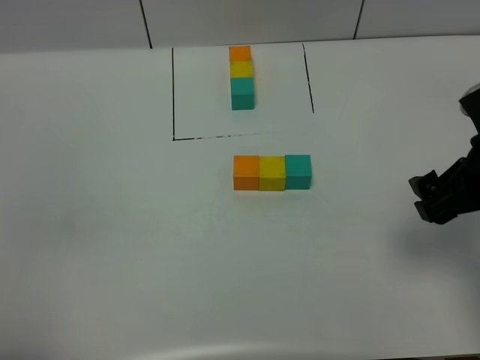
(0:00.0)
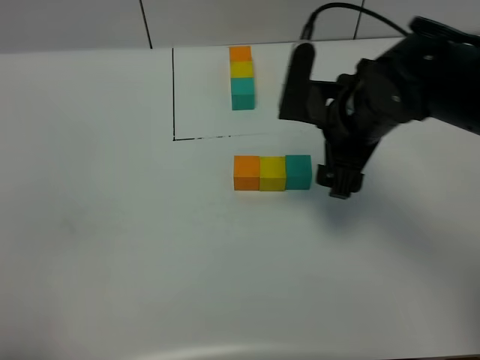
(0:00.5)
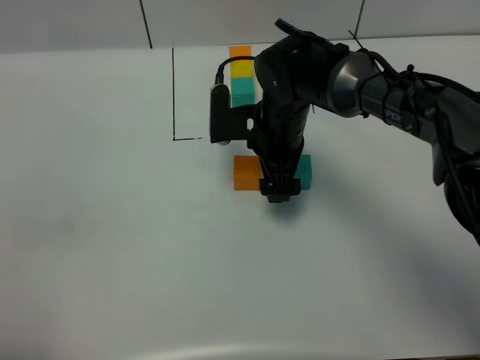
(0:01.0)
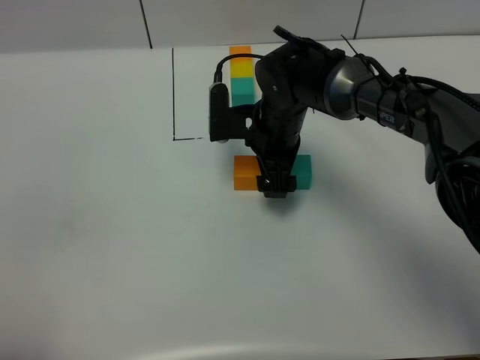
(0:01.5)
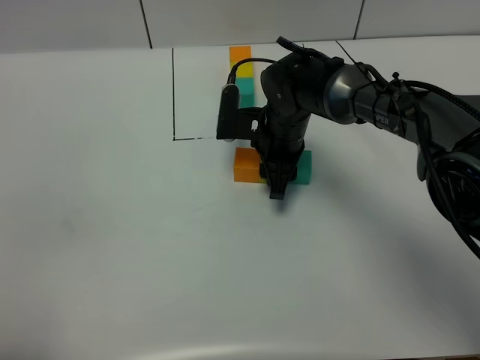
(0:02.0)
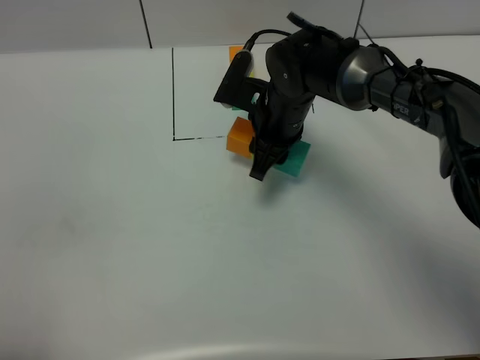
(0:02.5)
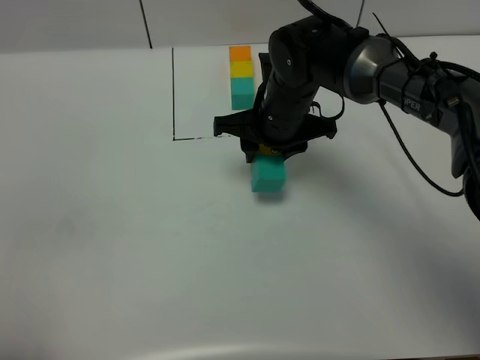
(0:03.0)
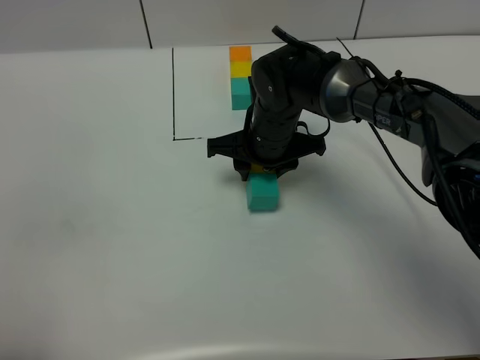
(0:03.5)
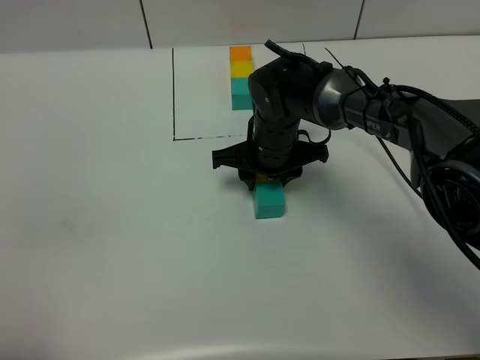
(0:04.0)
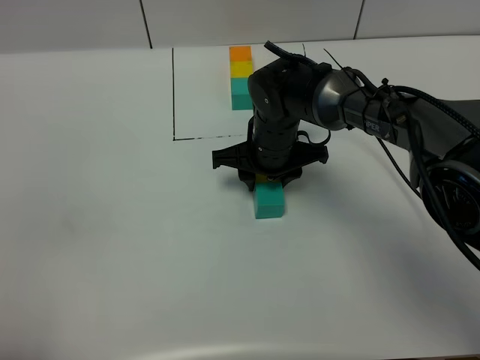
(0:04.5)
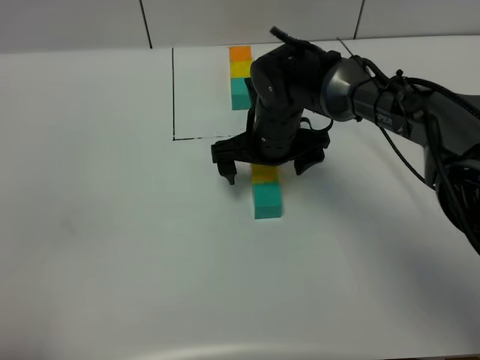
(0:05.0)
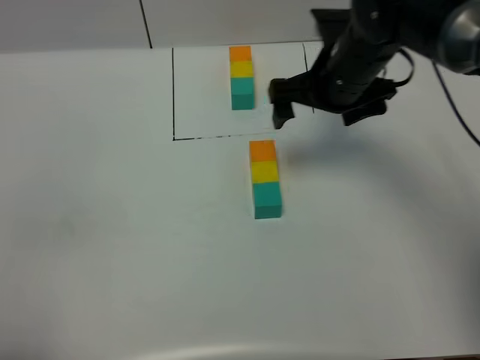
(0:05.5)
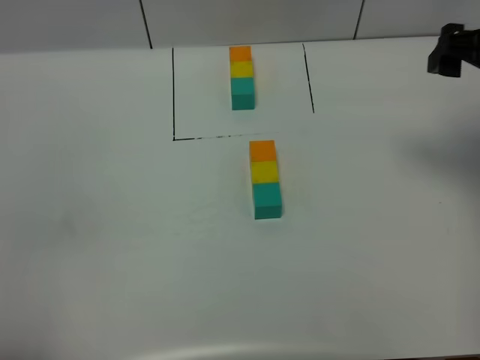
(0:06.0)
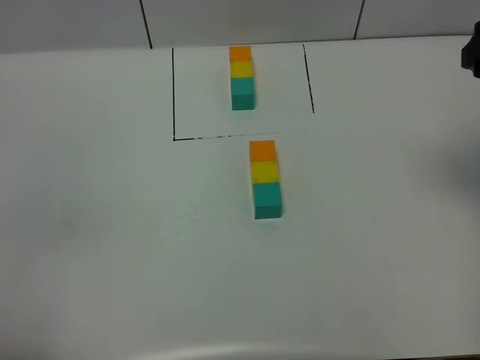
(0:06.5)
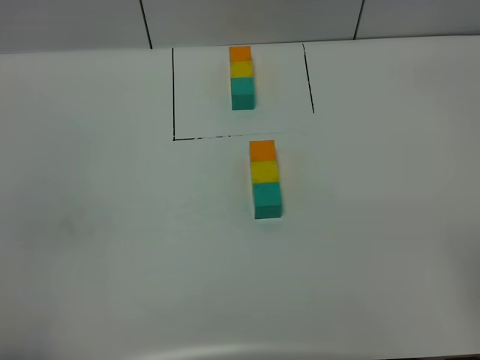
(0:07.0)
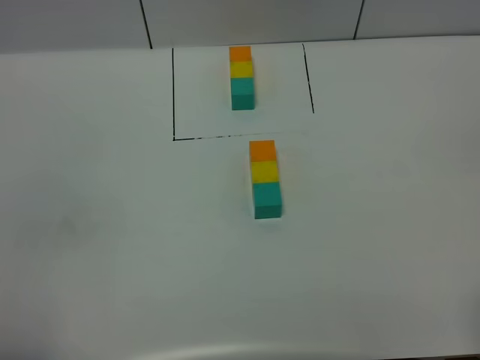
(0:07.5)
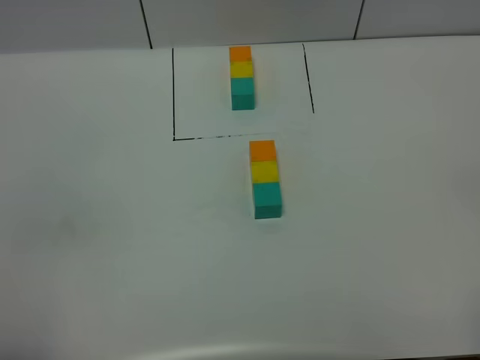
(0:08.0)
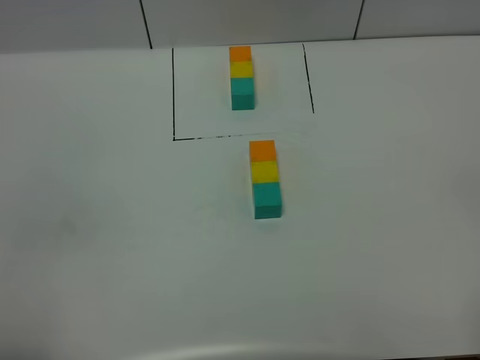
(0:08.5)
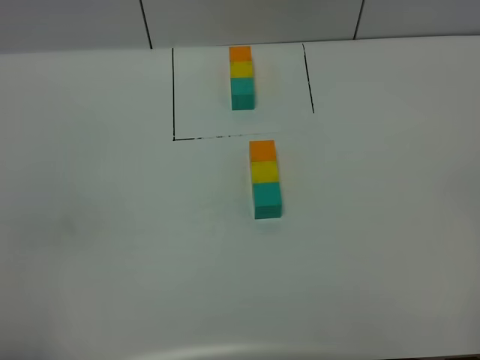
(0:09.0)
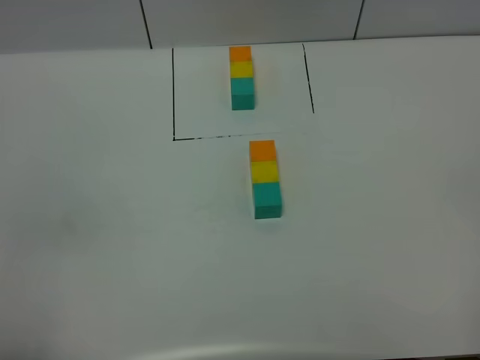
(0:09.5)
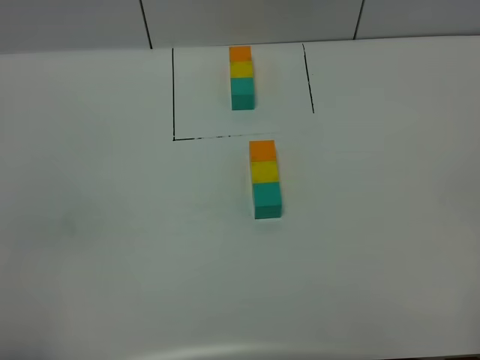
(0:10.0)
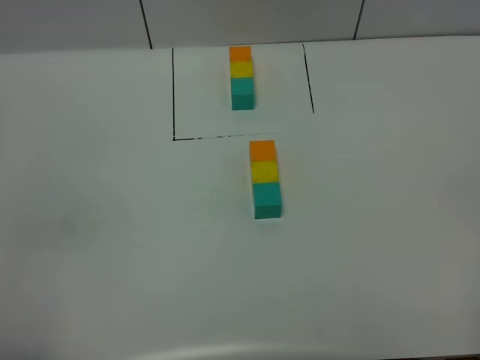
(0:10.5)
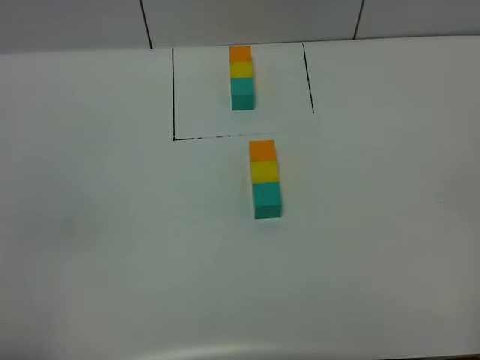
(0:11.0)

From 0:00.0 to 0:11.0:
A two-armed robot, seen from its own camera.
Task of the whole recording: According to the building block template in front, assemble the scattered blocks together.
Step, from 0:00.0 to 0:04.5: Adjust the pose of the building blocks.
From 0:00.0 to 0:02.0: The right gripper shifts approximately 30 cm to the left, forward and downward, and closes its fingers.
From 0:03.5 to 0:05.5: The right gripper moves to the right and upward, roughly 15 cm, and opens.
From 0:05.5 to 0:07.5: The right gripper moves backward and to the right, roughly 40 cm.

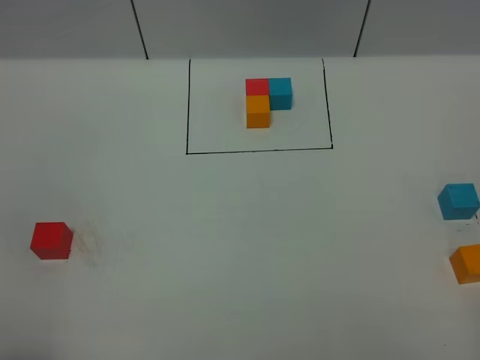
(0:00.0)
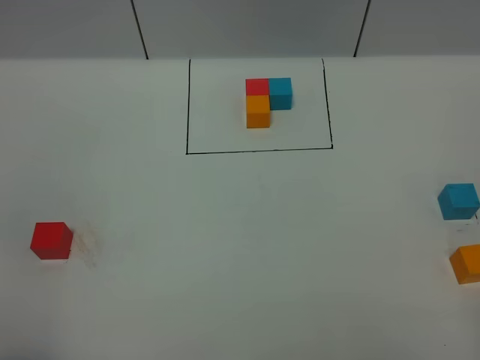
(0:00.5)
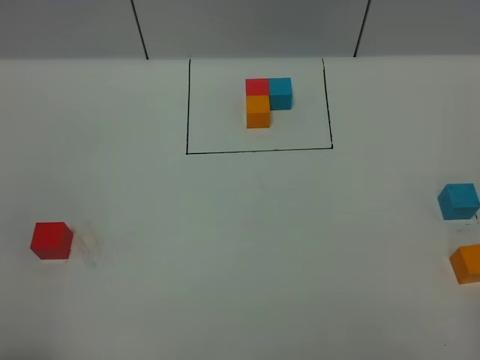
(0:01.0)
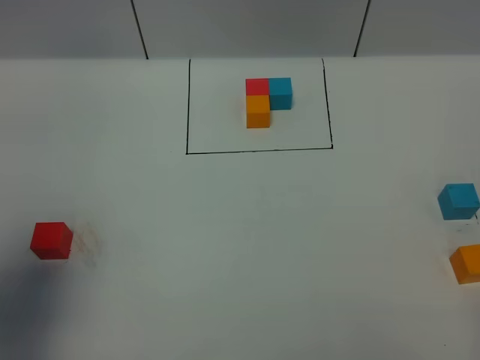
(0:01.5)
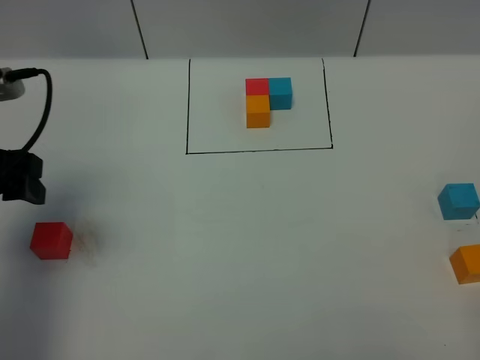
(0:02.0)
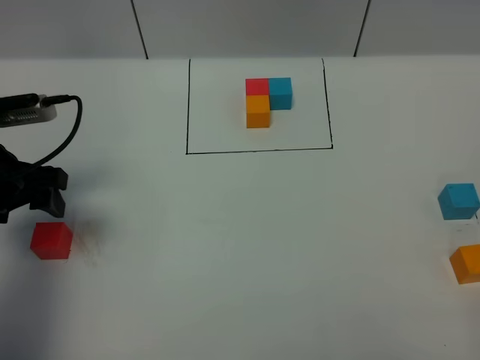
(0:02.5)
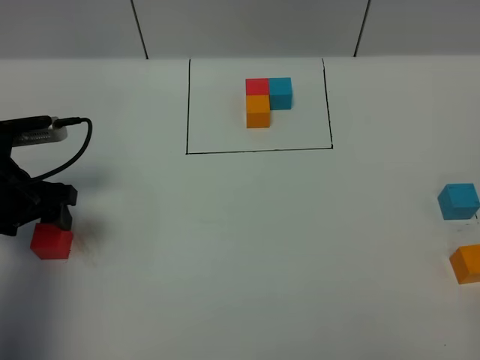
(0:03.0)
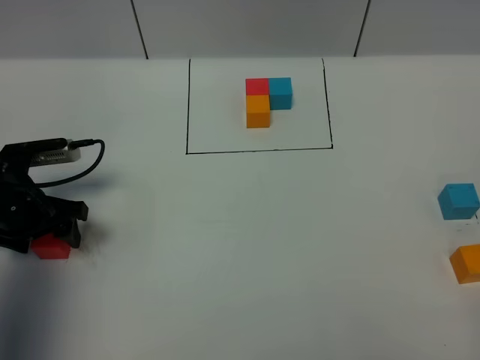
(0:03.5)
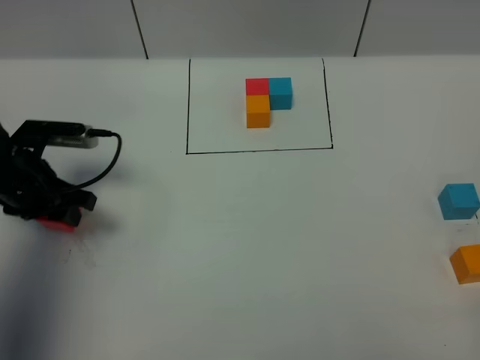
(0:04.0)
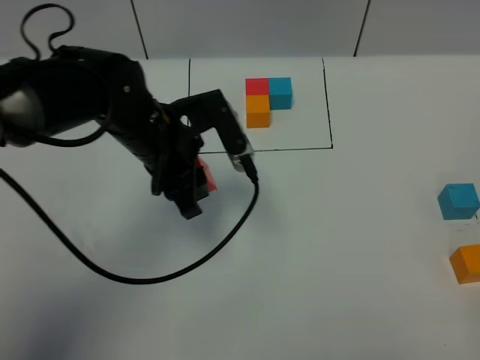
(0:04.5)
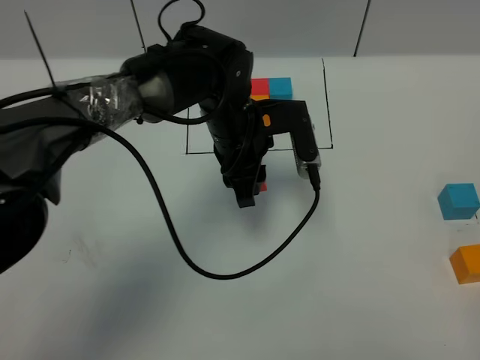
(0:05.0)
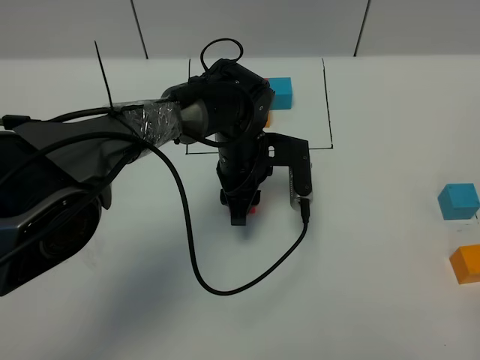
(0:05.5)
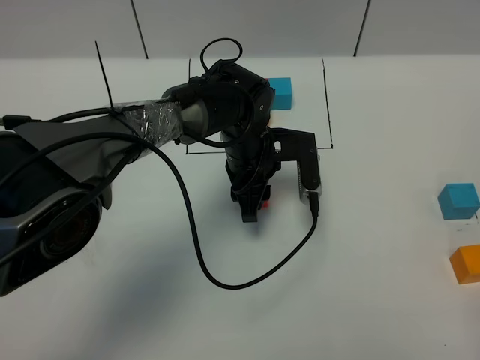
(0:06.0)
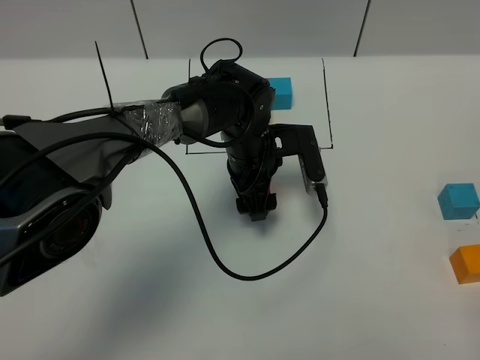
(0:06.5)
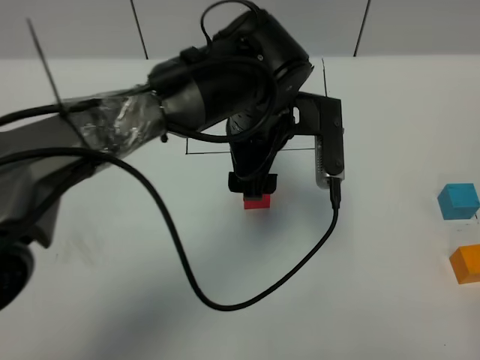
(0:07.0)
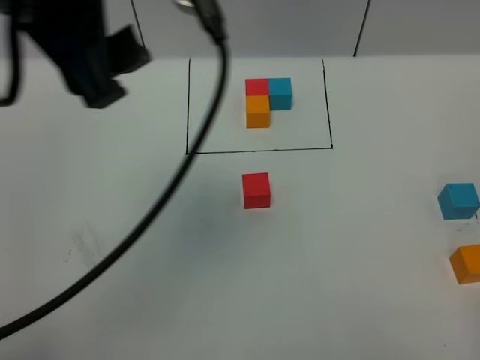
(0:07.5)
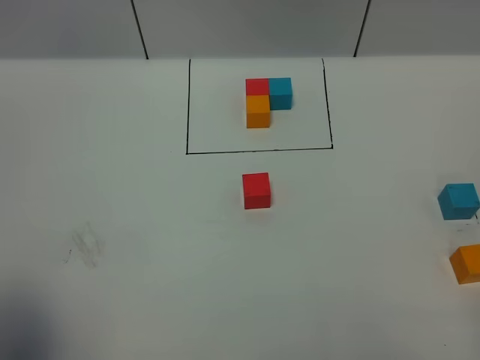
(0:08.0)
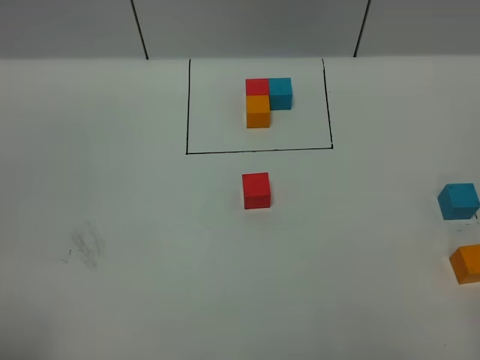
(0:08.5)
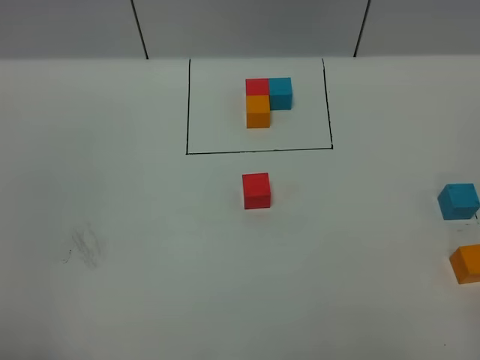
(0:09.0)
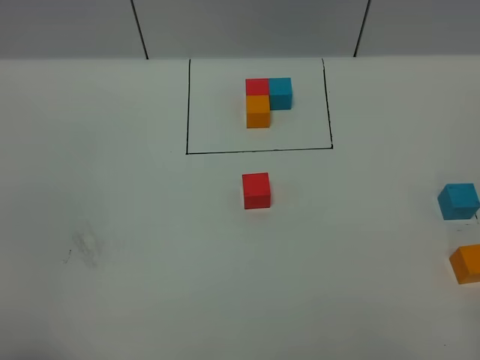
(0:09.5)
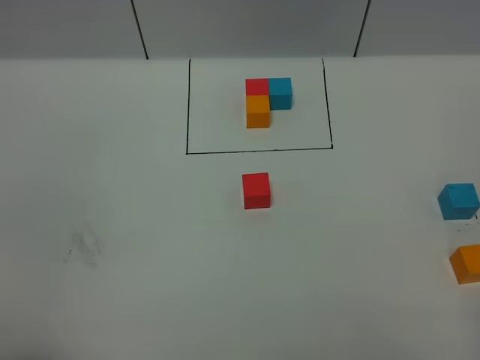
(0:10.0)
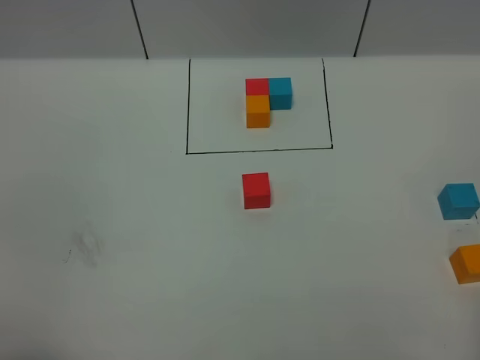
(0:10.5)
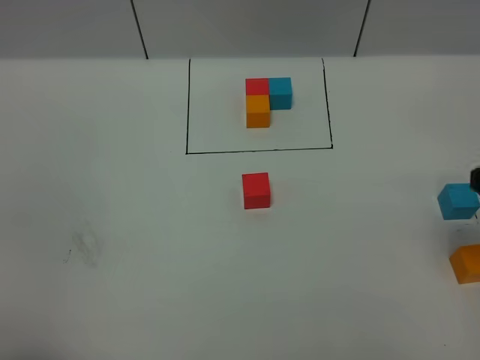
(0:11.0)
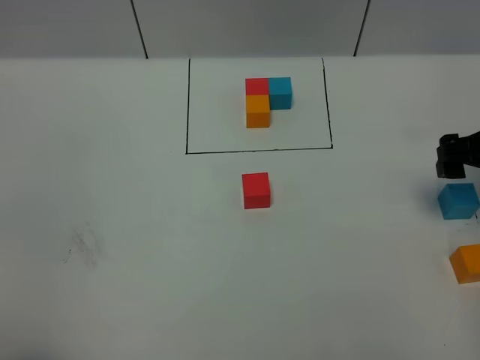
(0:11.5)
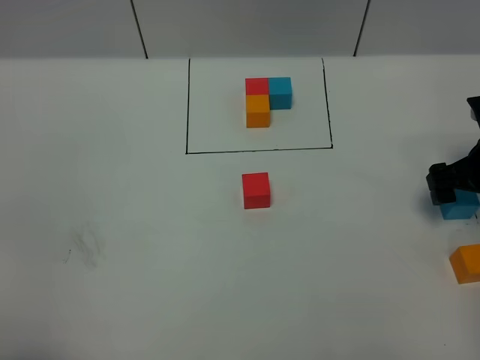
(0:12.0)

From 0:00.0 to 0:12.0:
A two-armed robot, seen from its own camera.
Task of the whole recording: According to the building block template in front, assemble the scattered blocks together.
Step, from 0:02.0 to 0:07.0: Put the red cube in the center of the table.
From 0:00.0 to 0:02.0: The left gripper is displaced forward by approximately 25 cm.
From 0:02.0 to 0:04.0: The left gripper heads downward and forward, covering roughly 15 cm, and closes its fingers.
From 0:04.0 to 0:06.0: The left gripper moves to the right, approximately 30 cm.
From 0:06.0 to 0:08.0: The left gripper is displaced backward, upward and to the left by roughly 60 cm, and opens its fingers.
From 0:08.0 to 0:10.0: The left gripper travels downward by roughly 15 cm.
From 0:10.0 to 0:12.0: The right gripper moves forward, some 35 cm, and opens.

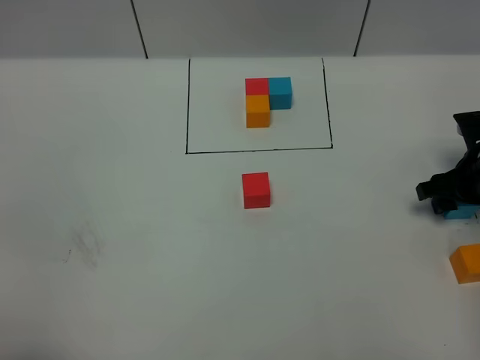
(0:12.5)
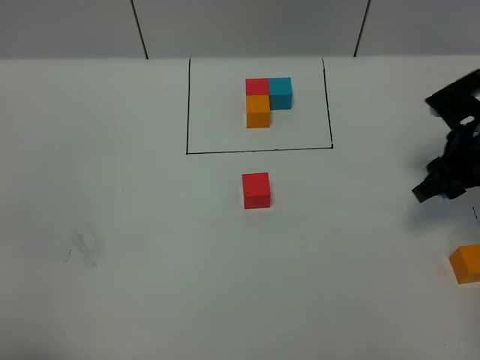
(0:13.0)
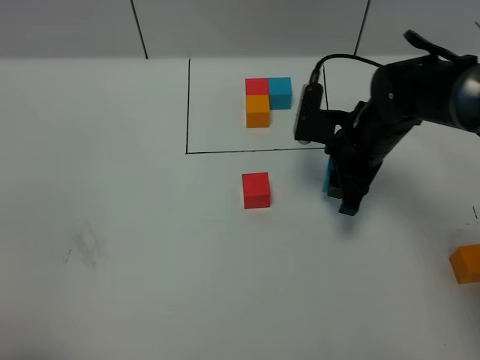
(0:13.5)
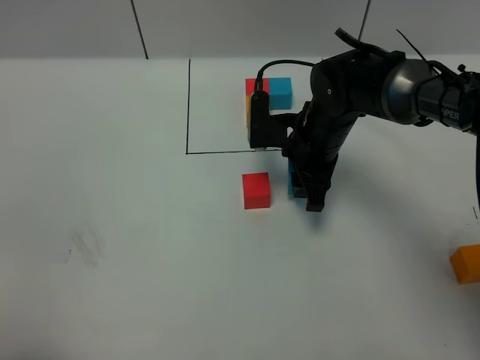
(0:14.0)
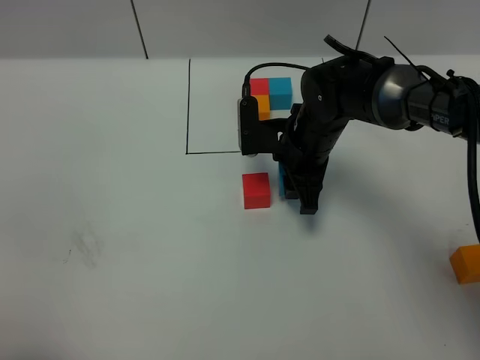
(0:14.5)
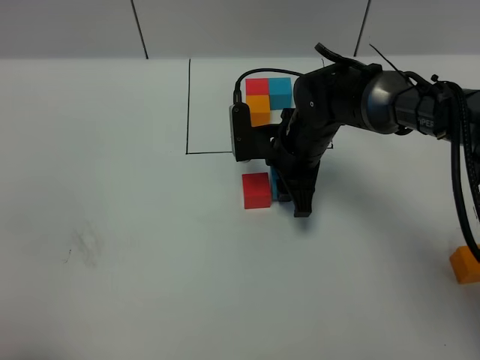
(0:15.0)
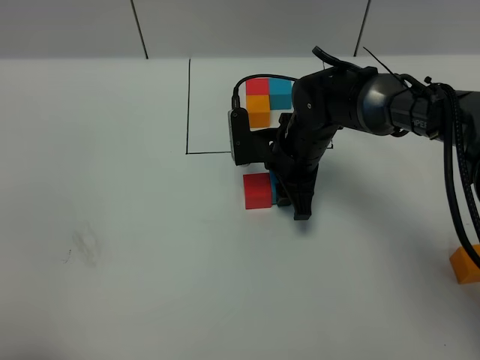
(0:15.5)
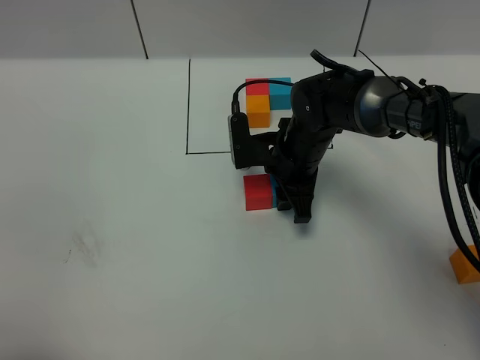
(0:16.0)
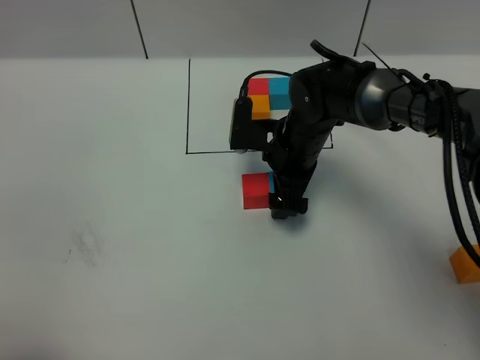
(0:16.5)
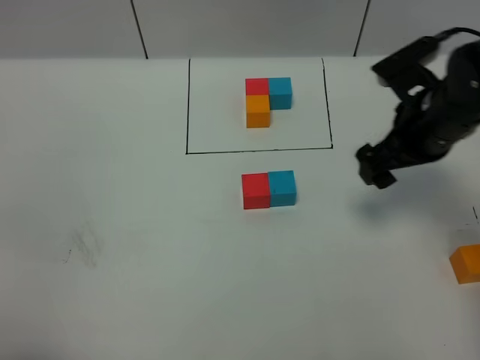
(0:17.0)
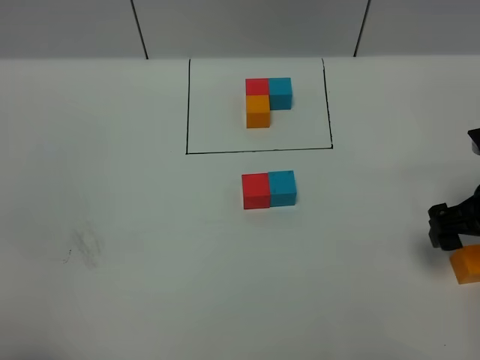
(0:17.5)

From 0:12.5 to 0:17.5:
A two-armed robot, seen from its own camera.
Task of the whole recording: According to the building block template in front, assemble the scattered blocks together.
Step, from 0:12.5 to 0:16.5: Put the blue cube on the right of the red cube.
From 0:12.5 to 0:15.0: The right gripper shifts about 25 cm to the left.
From 0:15.0 to 0:17.5: The right gripper moves to the right and backward, some 25 cm, and opens its fingers.
